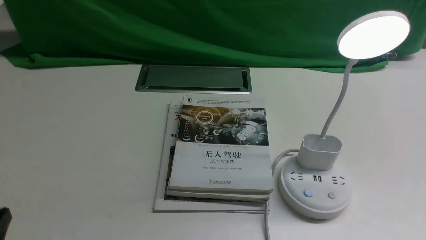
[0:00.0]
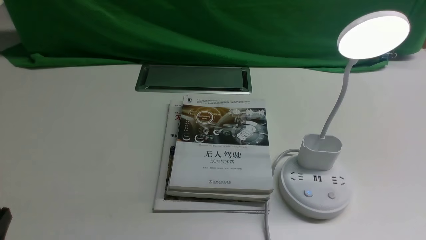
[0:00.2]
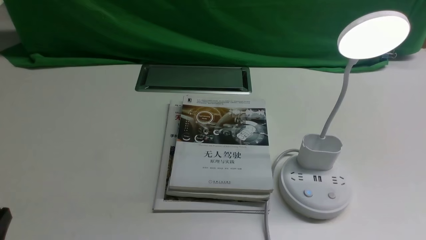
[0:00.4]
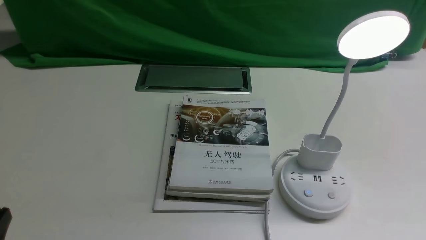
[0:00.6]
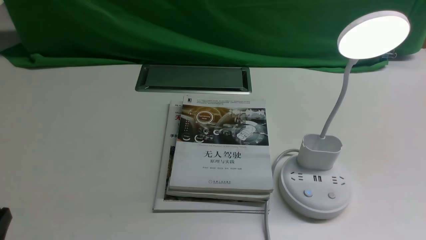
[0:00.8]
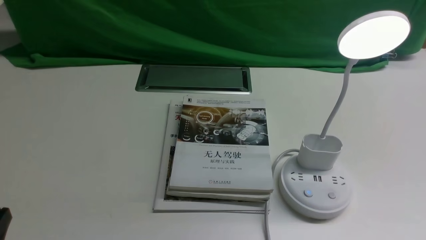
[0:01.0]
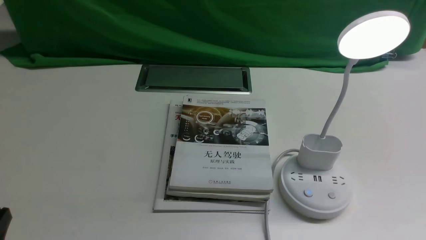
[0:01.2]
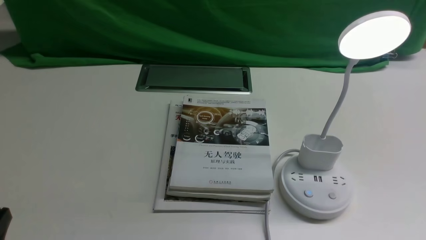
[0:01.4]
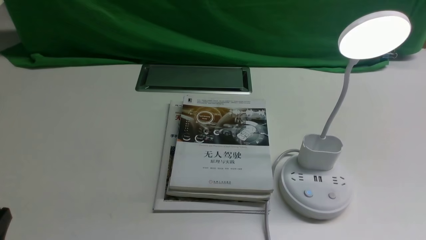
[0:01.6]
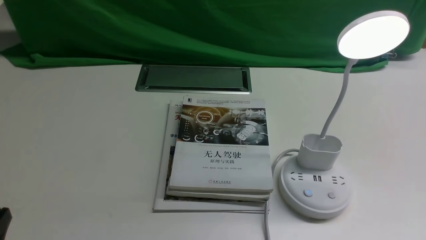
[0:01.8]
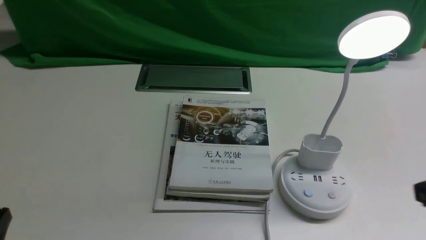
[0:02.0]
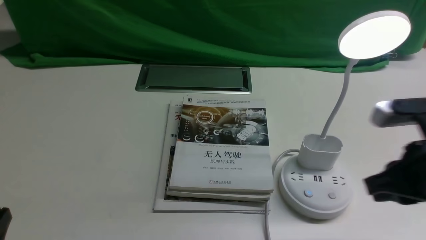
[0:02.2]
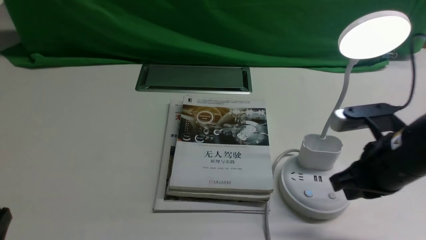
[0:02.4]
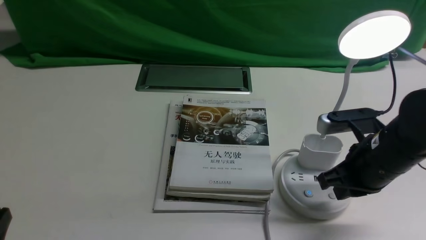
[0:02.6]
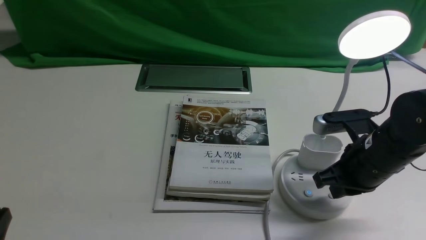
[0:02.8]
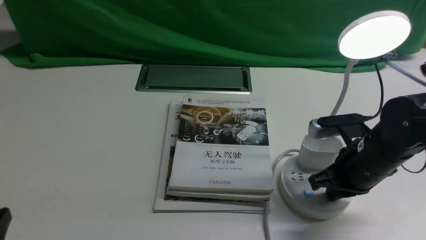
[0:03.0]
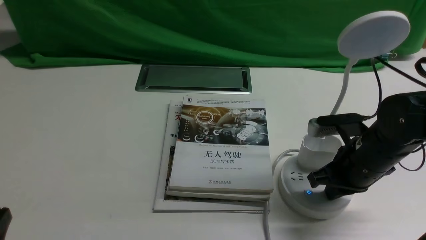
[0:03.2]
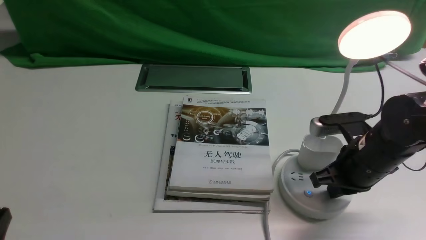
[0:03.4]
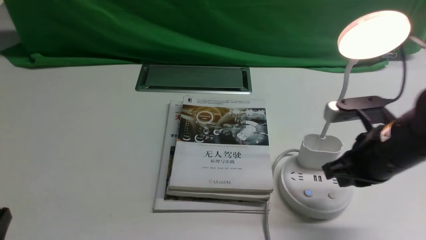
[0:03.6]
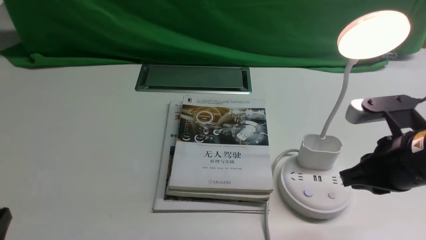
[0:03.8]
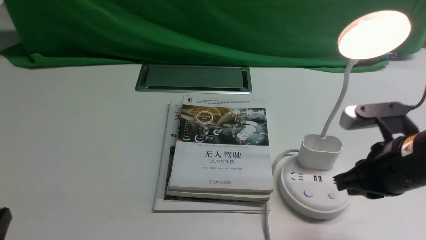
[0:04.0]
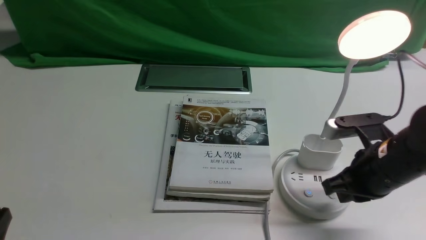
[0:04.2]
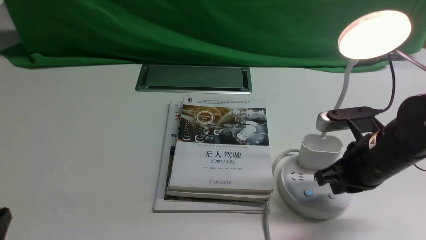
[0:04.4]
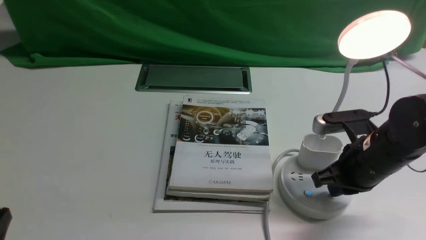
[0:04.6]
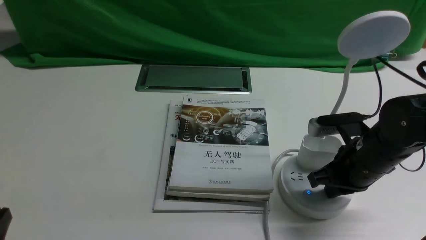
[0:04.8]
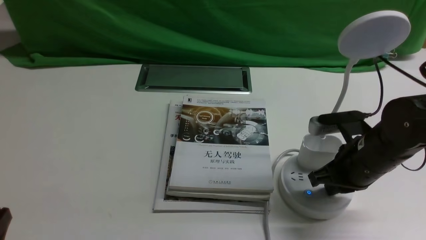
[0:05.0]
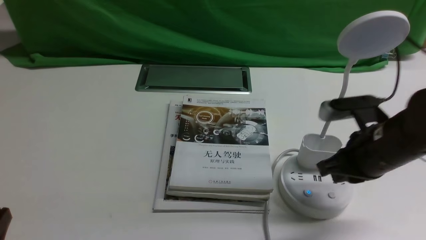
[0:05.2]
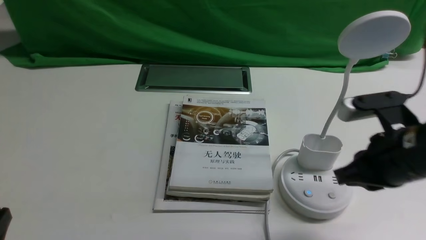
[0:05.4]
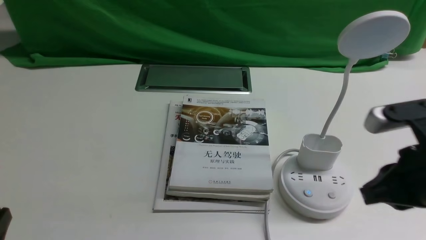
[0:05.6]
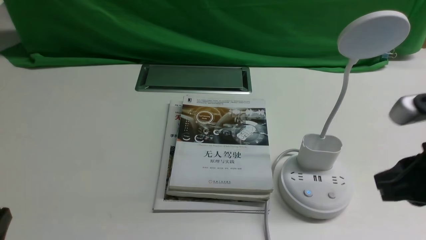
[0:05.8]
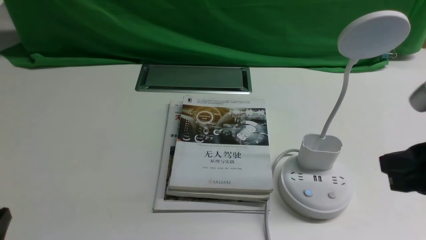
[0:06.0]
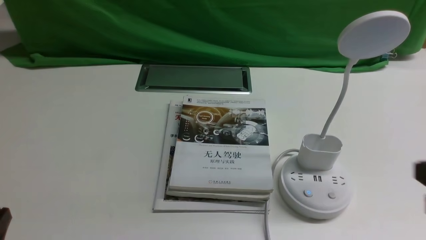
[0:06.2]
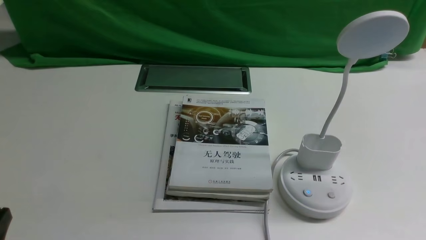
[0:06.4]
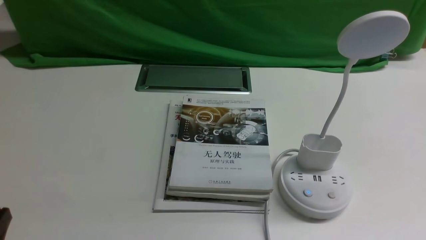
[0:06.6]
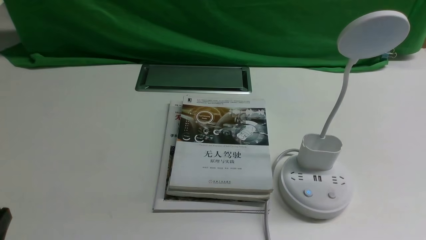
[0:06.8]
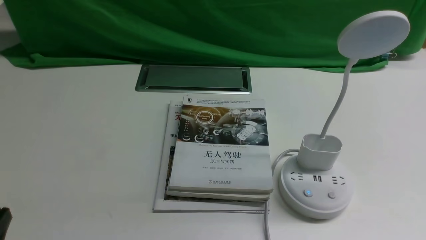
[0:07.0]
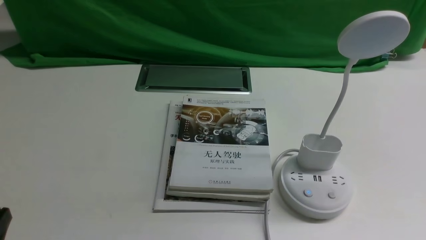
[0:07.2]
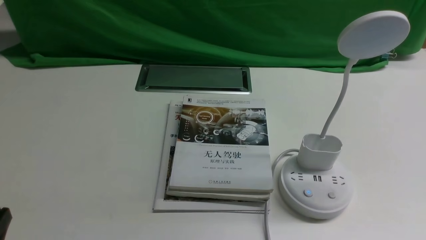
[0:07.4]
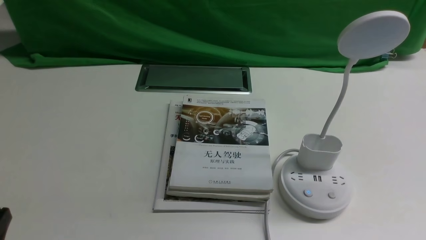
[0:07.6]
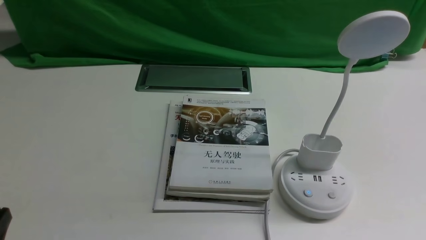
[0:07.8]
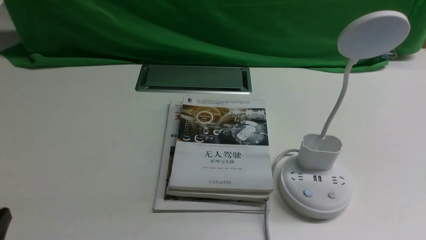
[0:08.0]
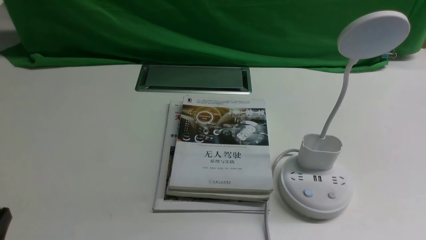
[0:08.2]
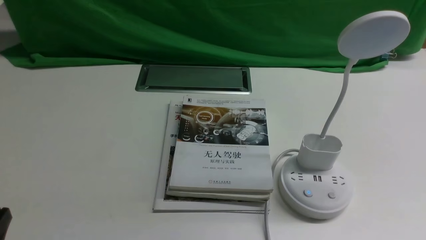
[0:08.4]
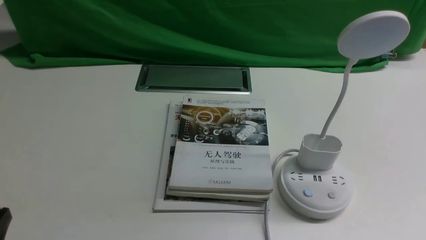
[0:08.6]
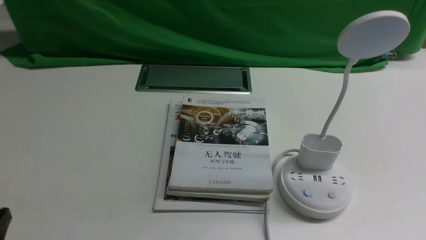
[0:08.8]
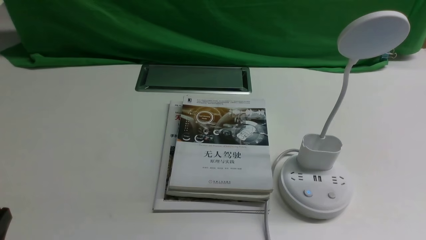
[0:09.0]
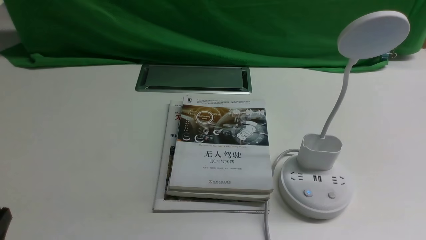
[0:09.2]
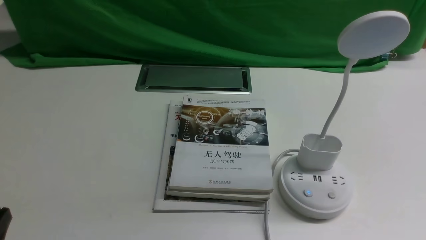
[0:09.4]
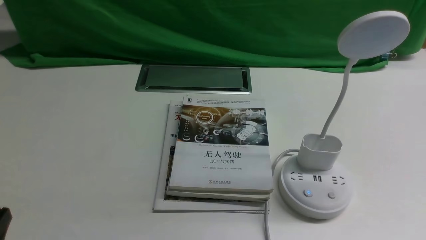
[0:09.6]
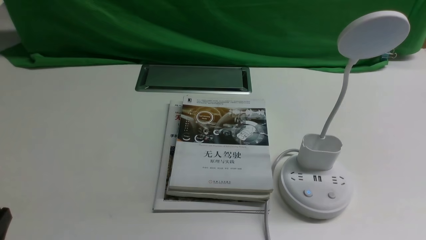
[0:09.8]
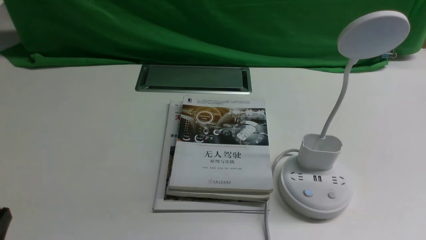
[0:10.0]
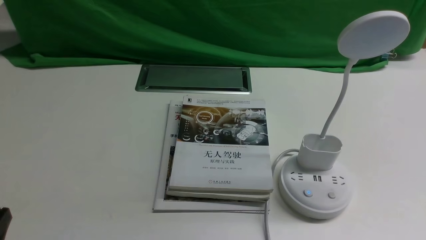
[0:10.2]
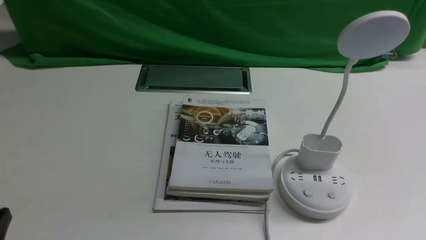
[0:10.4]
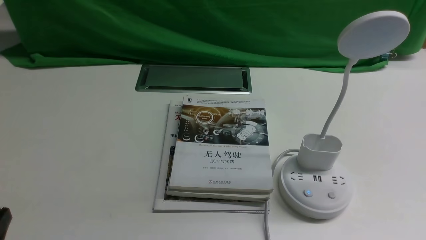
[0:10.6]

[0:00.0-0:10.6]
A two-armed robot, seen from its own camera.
Task of the whole recording: turn off the desk lamp on the white desktop by hand.
Step, 0:00.0 to 0:05.0: use the right arm to press the button switch on the lamp holder.
0:01.6 to 0:03.0: The right gripper goes some 25 cm forward and to the left, and closes its fingers.
0:03.0 to 0:04.6: The grippers make only small movements.
0:04.6 to 0:06.0: The right gripper moves upward and backward, some 15 cm.
0:06.0 to 0:07.6: The right gripper is displaced downward, backward and to the right by approximately 15 cm.
0:07.6 to 0:10.6: Both grippers stay about where they are.

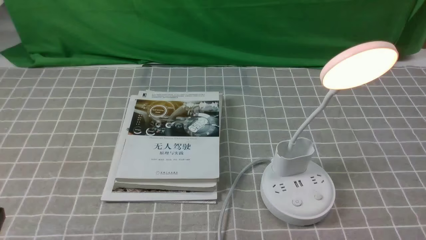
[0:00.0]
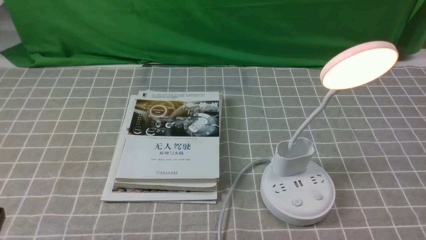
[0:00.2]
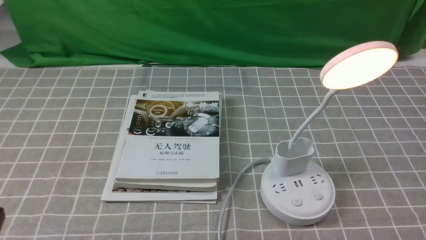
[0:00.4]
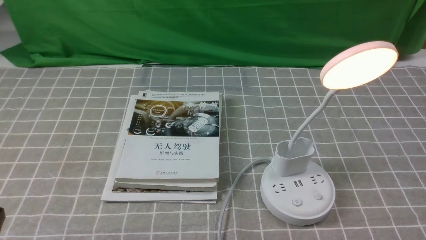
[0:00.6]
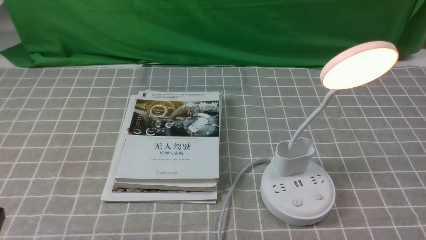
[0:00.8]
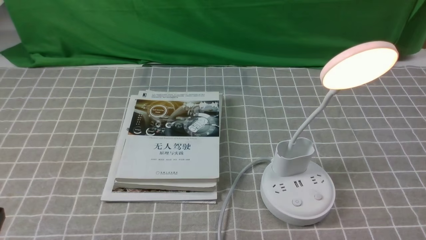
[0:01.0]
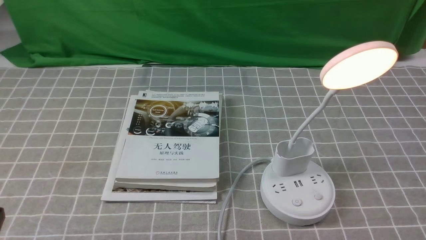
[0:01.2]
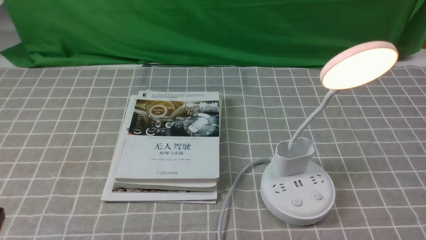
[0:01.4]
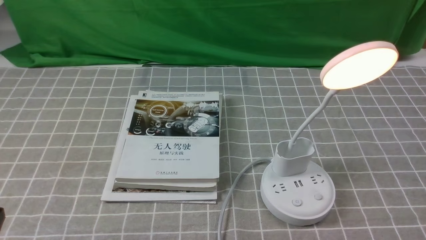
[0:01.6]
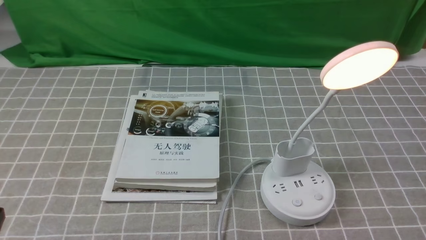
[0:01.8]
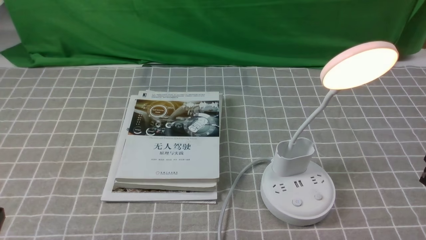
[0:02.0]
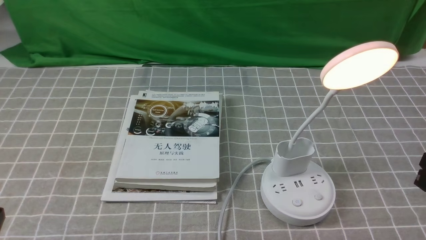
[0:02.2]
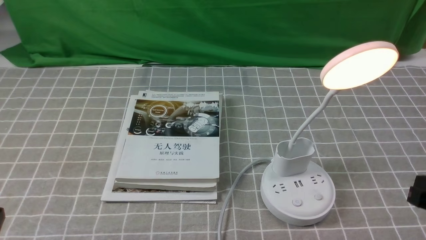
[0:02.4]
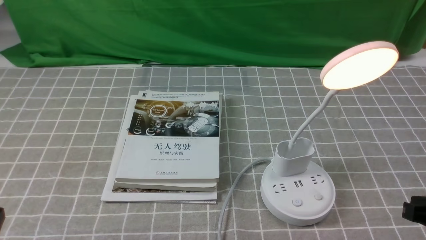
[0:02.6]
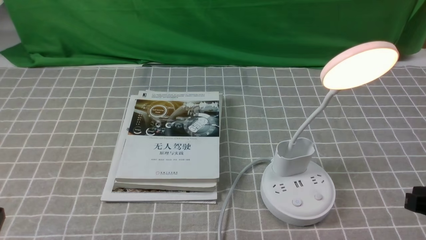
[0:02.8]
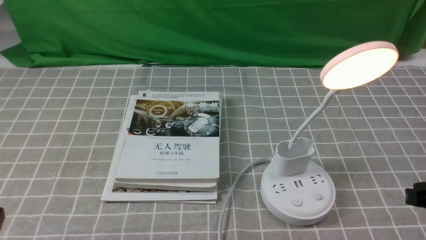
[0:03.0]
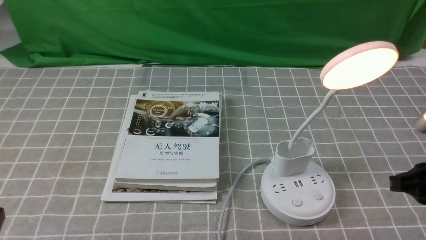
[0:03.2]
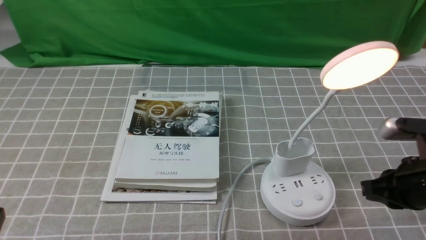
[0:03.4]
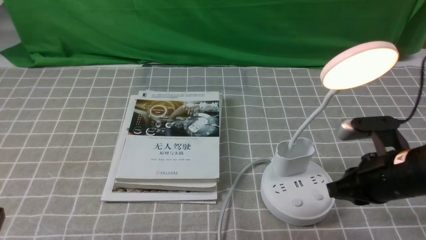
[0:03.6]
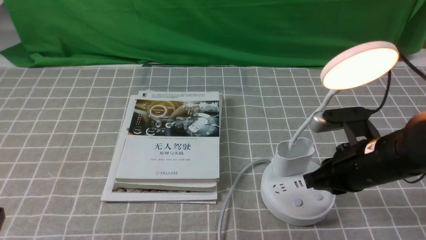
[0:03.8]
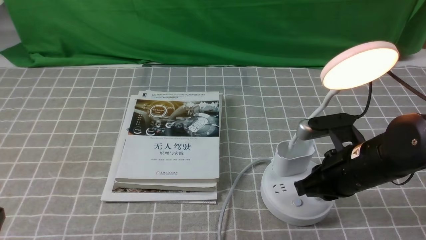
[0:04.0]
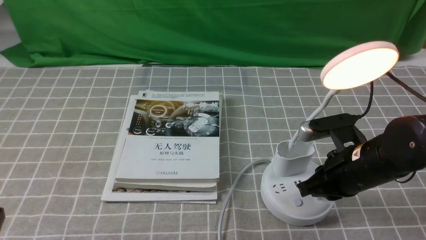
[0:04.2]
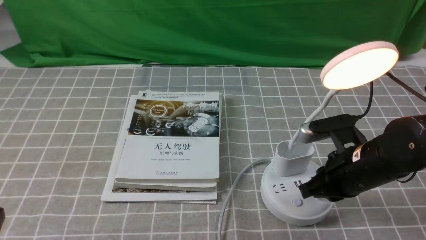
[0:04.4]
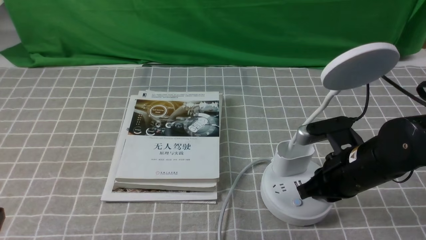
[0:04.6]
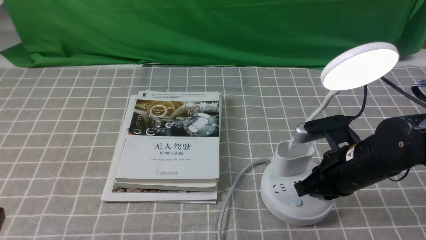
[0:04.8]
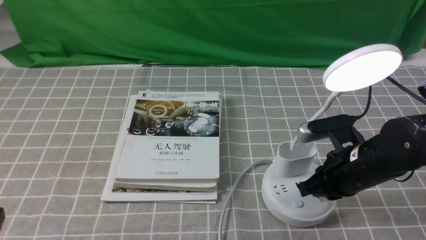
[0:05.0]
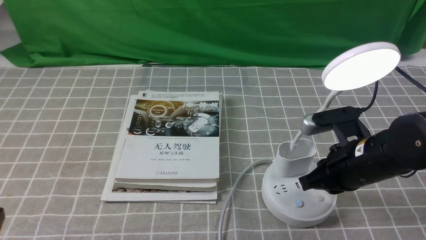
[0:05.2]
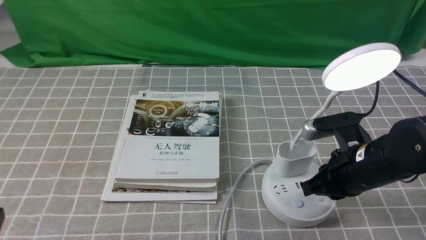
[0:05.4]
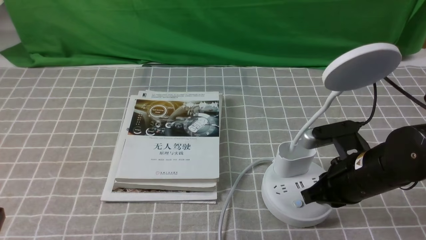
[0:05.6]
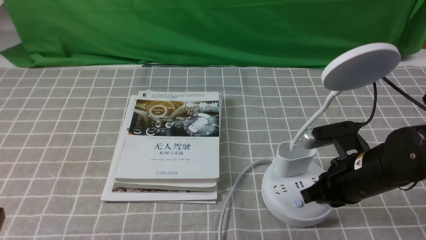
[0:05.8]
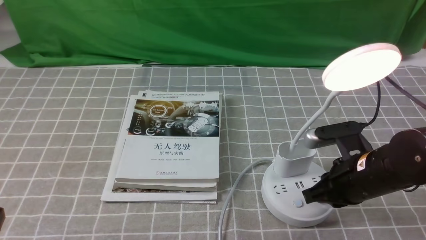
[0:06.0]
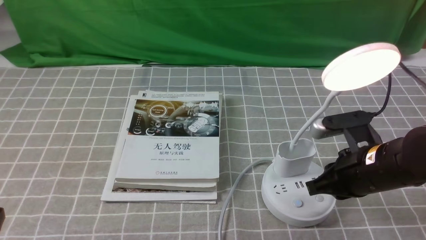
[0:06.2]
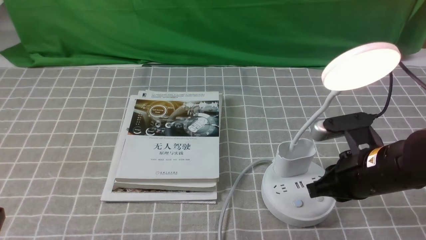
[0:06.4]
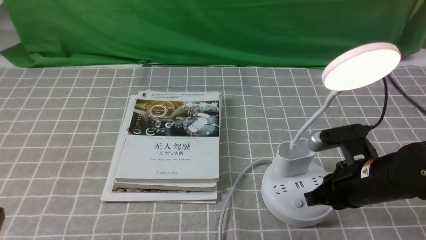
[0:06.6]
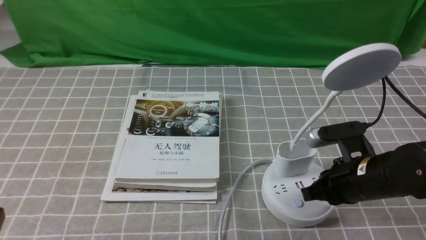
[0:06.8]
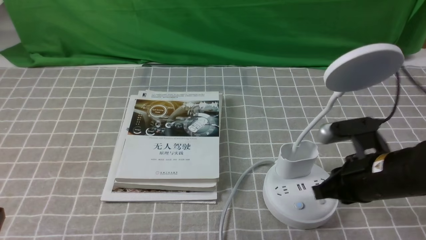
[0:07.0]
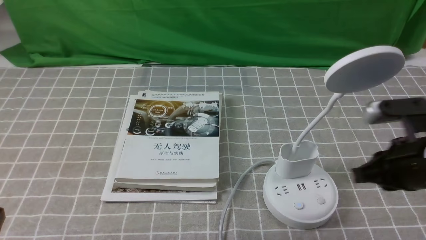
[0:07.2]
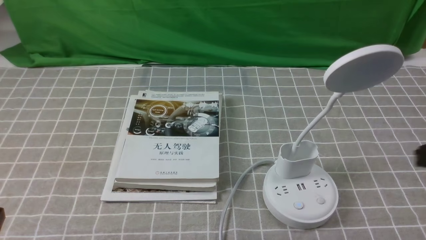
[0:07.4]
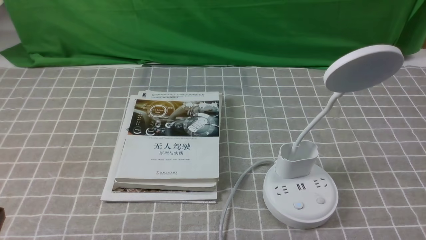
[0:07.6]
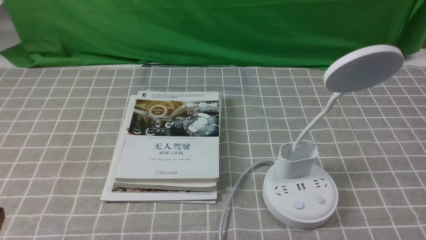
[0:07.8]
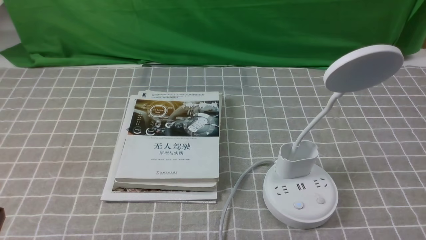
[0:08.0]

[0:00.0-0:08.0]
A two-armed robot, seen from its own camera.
Task of the whole recording: turn off the desk lamp on the grey coffee tablecloth by hand.
Step, 0:00.0 to 0:07.0: use the right arm to press the button switch on the lamp holder.
0:01.6 to 0:03.2: The right gripper heads forward, covering roughly 5 cm, and closes.
0:03.2 to 0:04.8: The right gripper is displaced to the left, forward and downward by some 15 cm.
0:04.8 to 0:06.4: There are only small adjustments of the grippers.
0:06.4 to 0:08.0: The right gripper heads backward, to the right and upward, covering some 25 cm.
